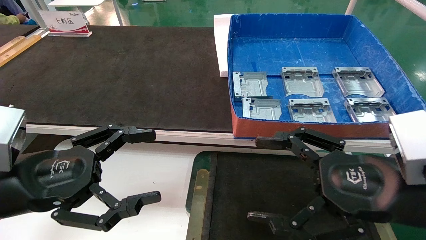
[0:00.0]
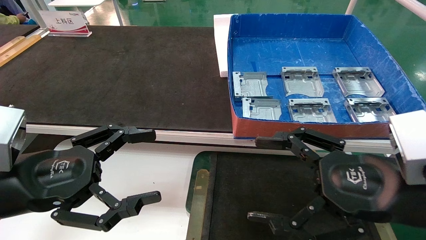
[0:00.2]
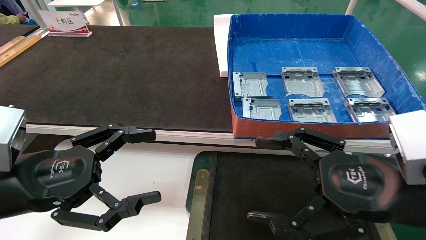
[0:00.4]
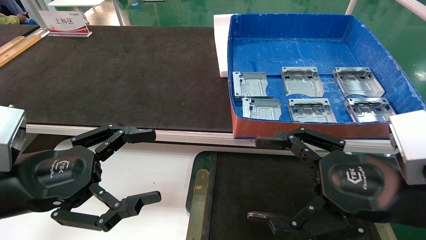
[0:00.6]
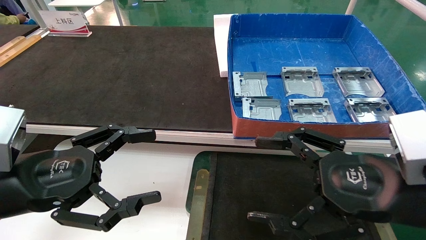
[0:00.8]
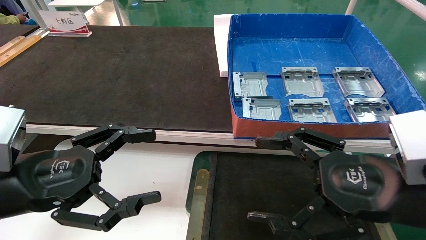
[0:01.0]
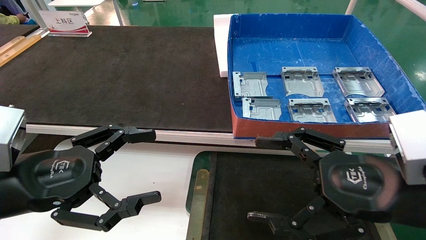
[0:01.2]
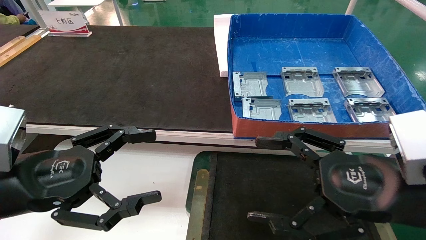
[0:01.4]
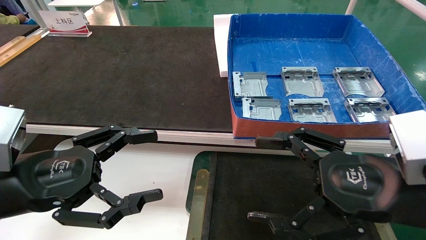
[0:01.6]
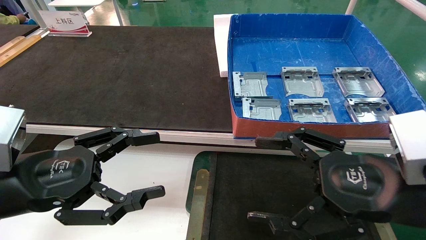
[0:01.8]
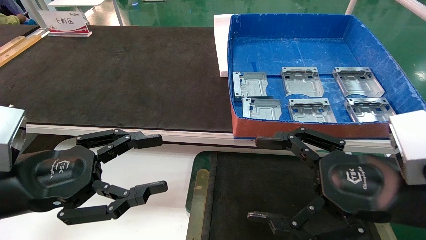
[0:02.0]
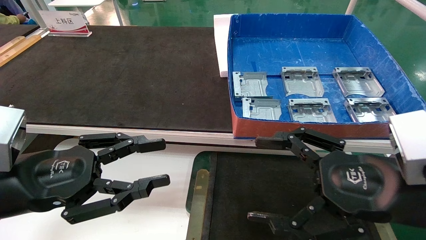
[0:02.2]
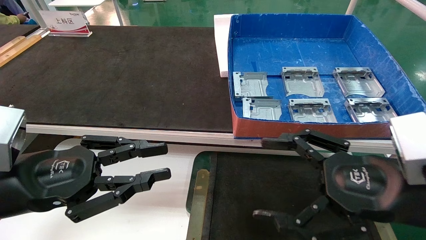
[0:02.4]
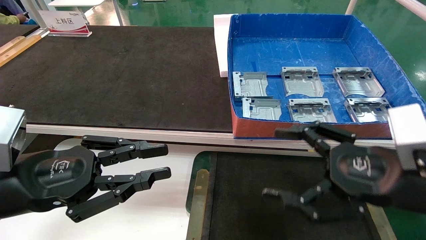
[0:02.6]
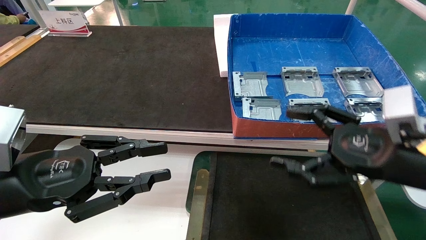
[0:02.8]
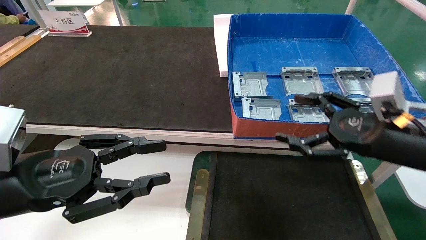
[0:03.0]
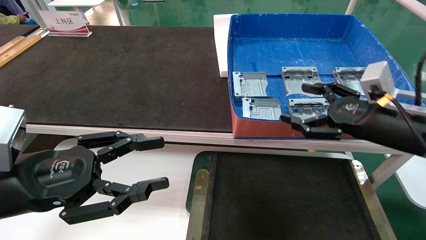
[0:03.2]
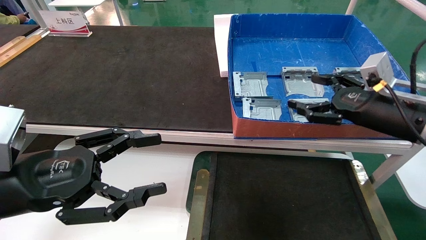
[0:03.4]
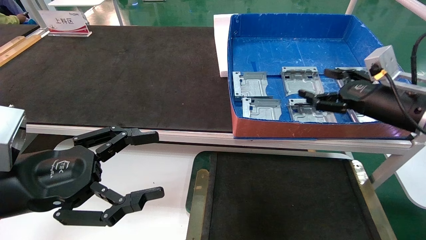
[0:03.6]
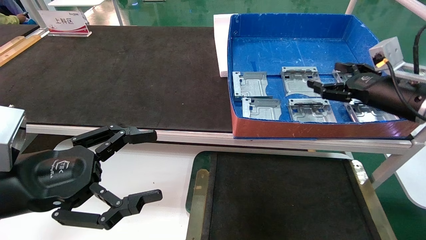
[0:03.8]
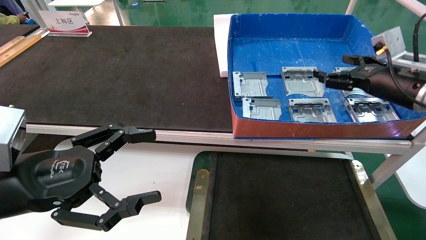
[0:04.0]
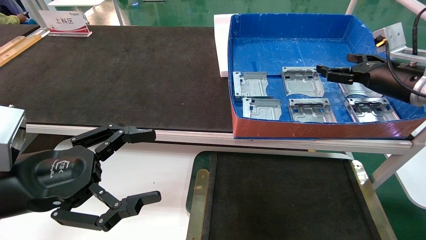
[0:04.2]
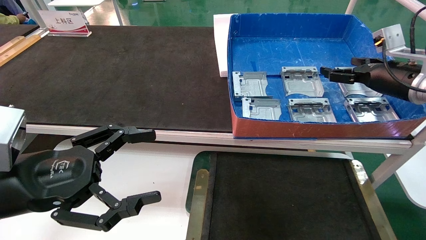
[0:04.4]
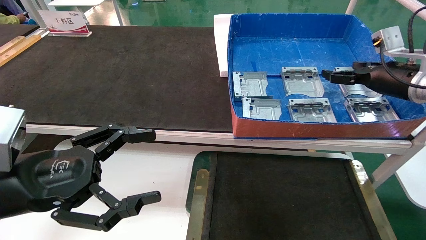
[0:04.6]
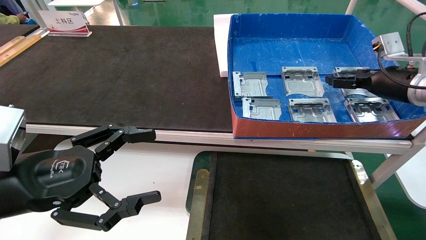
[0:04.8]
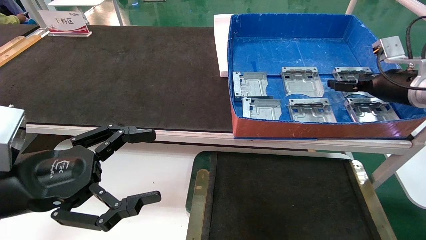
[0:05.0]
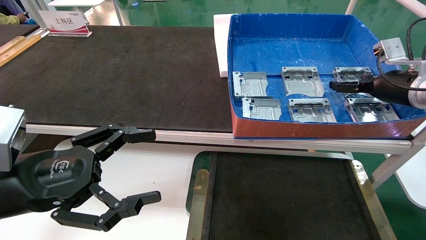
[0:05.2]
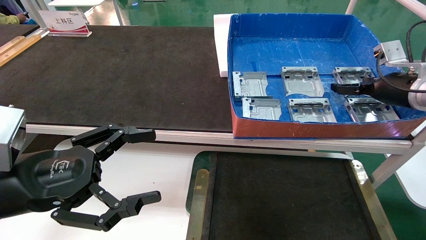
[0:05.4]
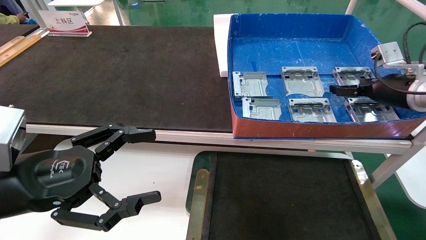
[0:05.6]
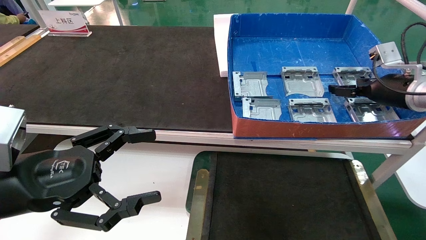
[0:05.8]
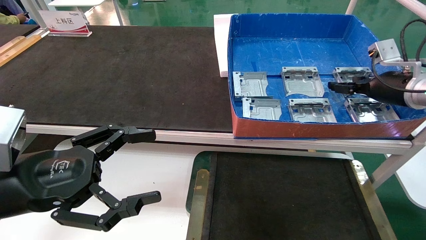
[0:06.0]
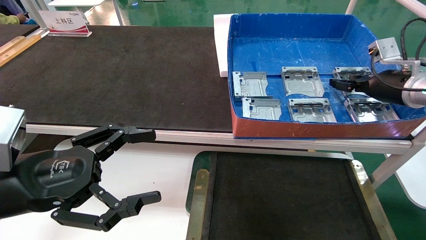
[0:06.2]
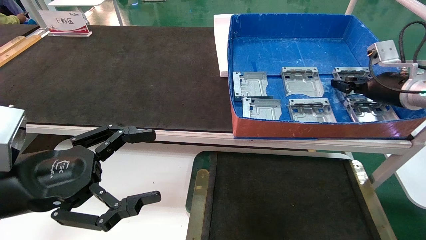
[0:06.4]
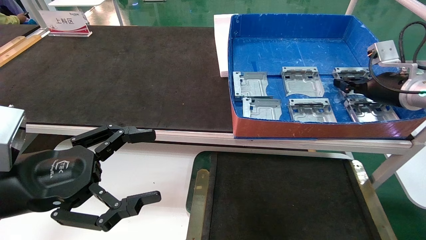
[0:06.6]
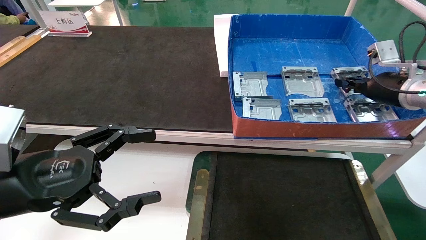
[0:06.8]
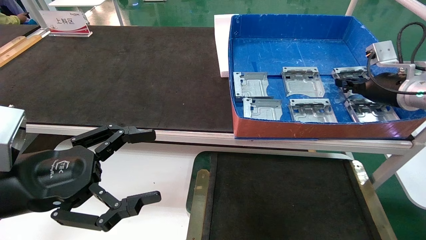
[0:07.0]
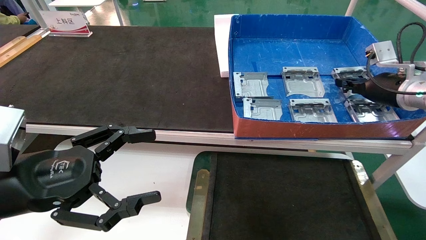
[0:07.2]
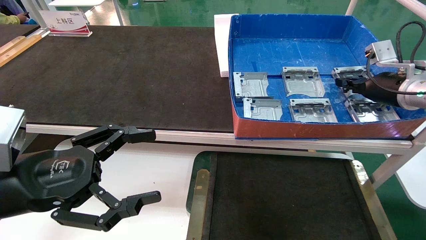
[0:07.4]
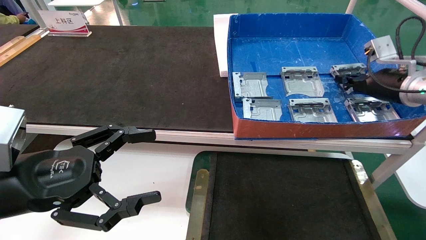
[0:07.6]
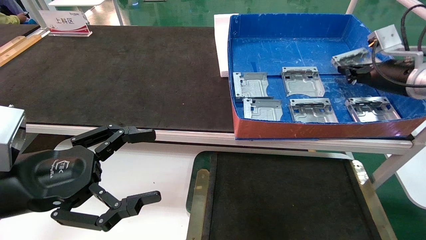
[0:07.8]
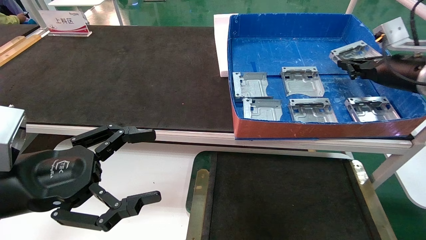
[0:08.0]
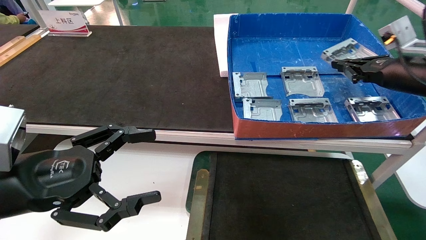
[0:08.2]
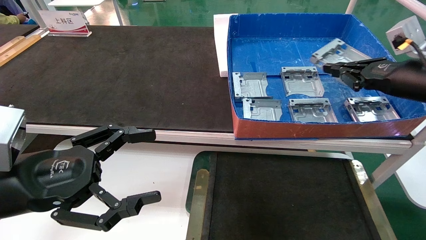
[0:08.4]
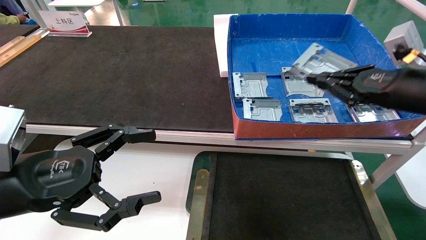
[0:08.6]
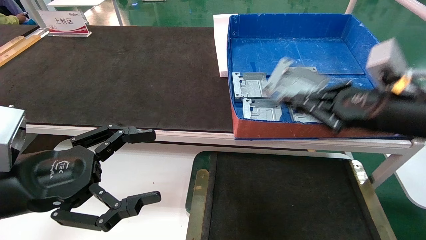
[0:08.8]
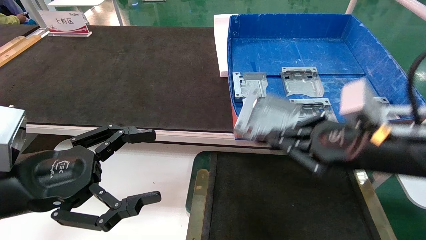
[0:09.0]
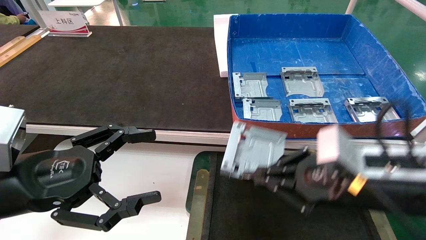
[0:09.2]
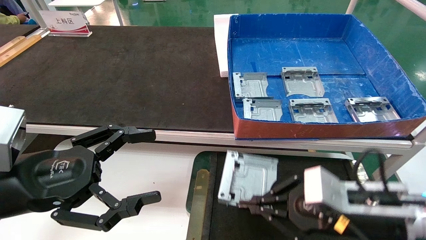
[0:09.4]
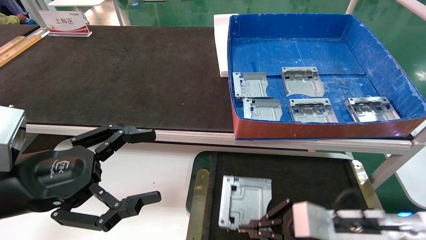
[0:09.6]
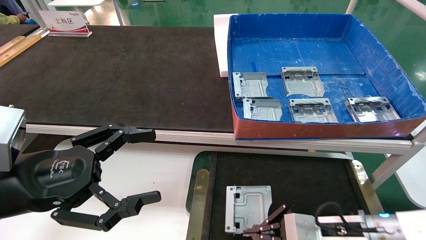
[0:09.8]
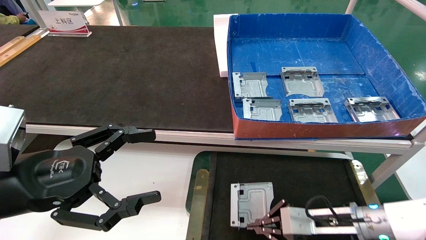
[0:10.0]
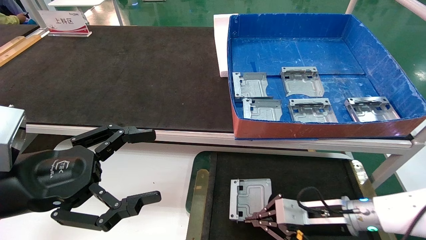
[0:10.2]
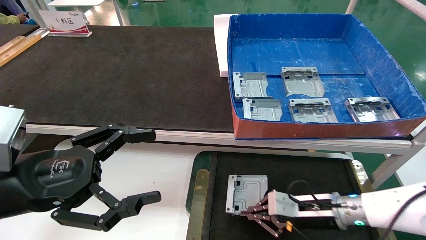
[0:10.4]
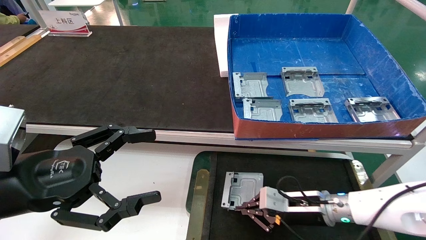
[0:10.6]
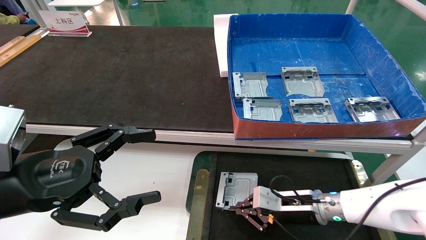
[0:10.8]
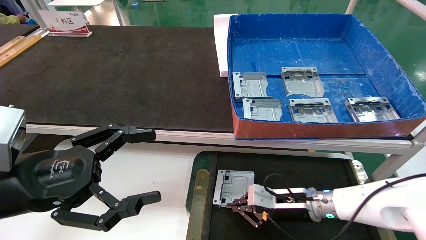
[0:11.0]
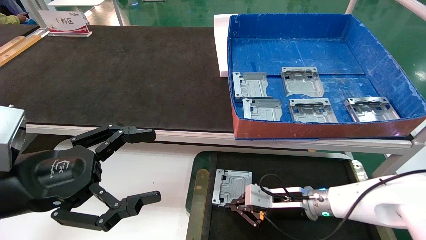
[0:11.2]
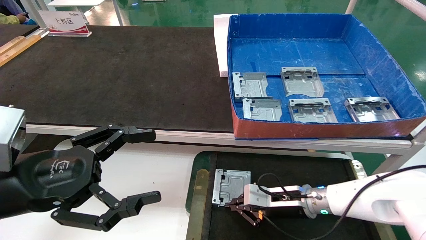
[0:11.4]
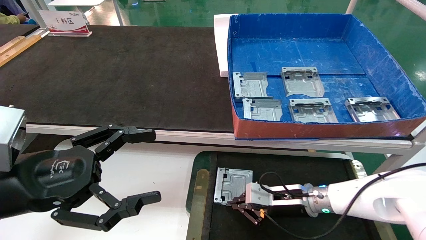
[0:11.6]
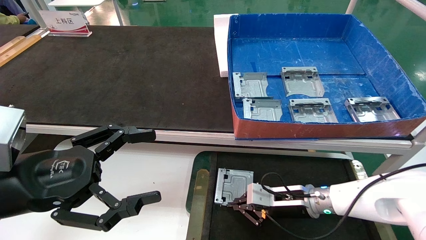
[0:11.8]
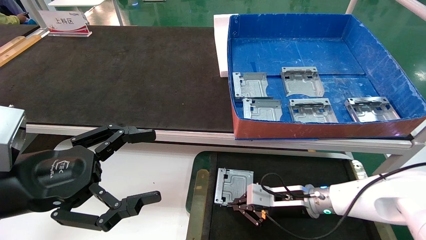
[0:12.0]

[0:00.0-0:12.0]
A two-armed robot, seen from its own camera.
Task of the whole recording: pick up parts and place them into a black container.
Step, 0:02.8 to 0:07.0: Pick up the hard drive bracket from the feeding area.
0:00.0 to 0:01.6: The two grippers keep their place.
0:01.6 to 0:03.0: The right gripper travels forward and to the right by roughly 10 cm. Meanwhile the left gripper closes up.
0:03.0 to 0:04.4: The left gripper opens its fingers. The right gripper shifts about 15 cm forward and to the right.
0:04.4 to 0:06.0: The grippers make only small movements.
0:06.0 to 0:07.6: The right gripper closes its fingers.
0:07.6 to 0:09.0: The right gripper shifts approximately 20 cm backward and to the left.
0:09.0 to 0:10.4: The right gripper goes approximately 20 cm downward and forward.
0:10.4 to 0:12.0: The right gripper changes place by some 5 cm.

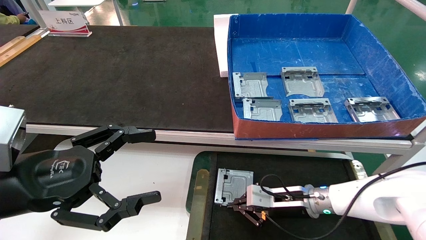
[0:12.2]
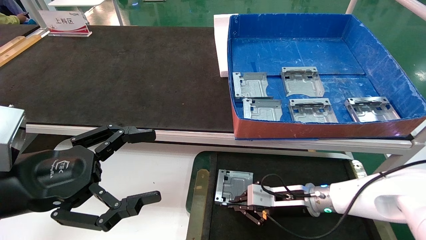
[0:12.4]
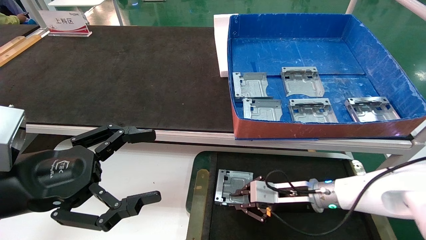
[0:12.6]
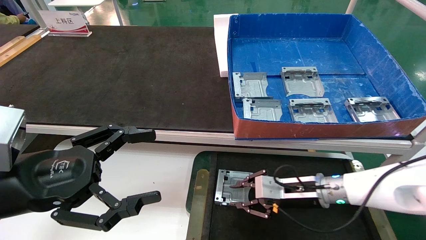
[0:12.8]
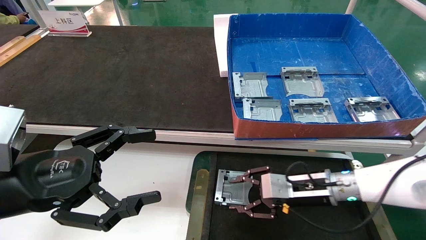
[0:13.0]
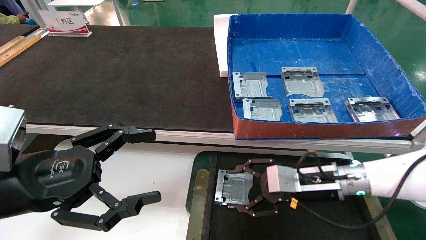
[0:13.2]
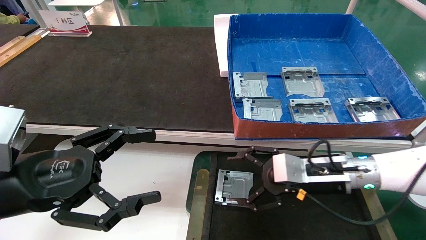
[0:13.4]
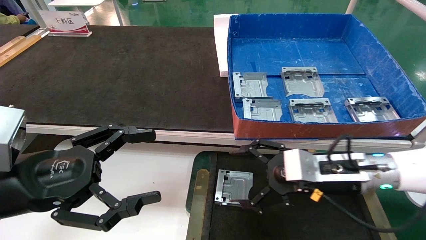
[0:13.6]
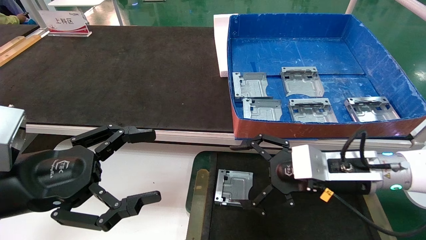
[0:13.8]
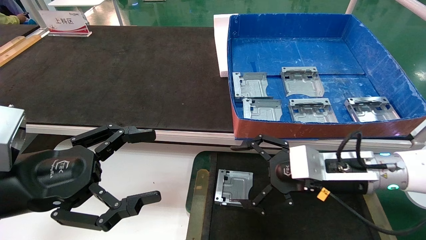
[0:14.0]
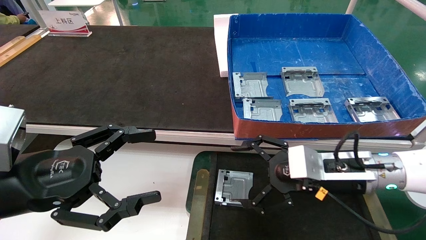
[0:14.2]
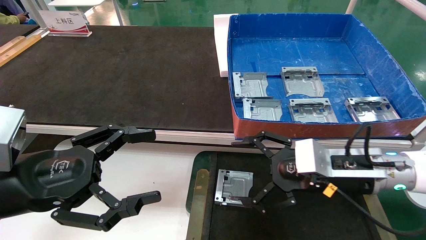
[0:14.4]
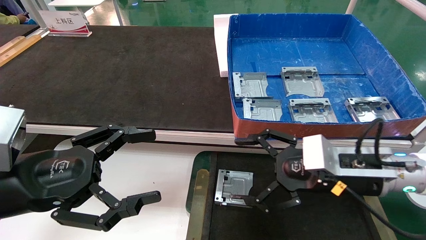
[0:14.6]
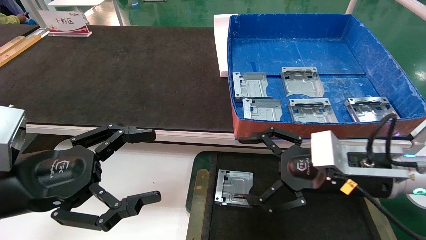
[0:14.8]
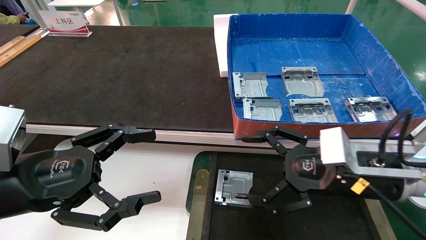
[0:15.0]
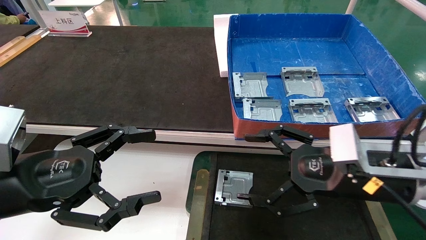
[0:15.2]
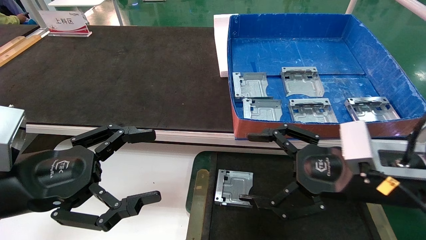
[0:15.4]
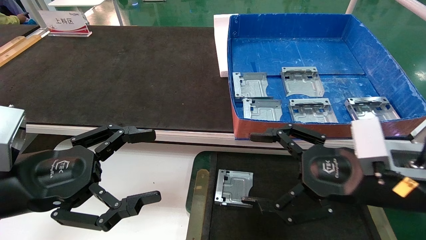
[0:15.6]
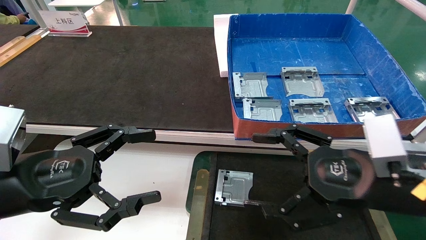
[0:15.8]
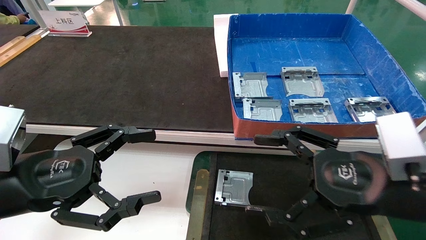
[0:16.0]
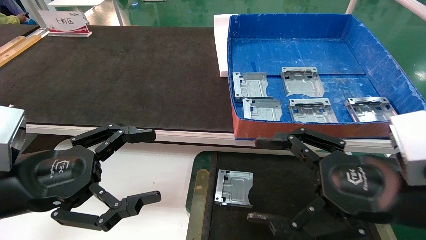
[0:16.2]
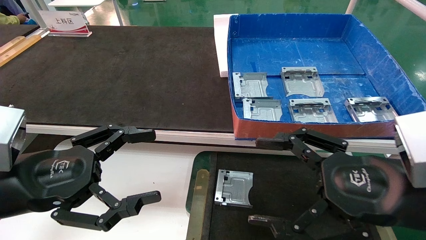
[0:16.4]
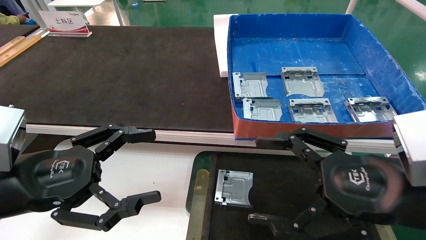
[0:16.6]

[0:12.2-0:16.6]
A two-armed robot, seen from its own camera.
Task of the whole recording: pick up parts and place them into a black container.
0:12.2 to 0:13.6: The right gripper heads upward and backward, covering roughly 15 cm, and opens.
0:13.6 to 0:15.2: The right gripper travels backward by roughly 5 cm.
0:15.2 to 0:16.6: The right gripper heads backward, covering some 5 cm.
